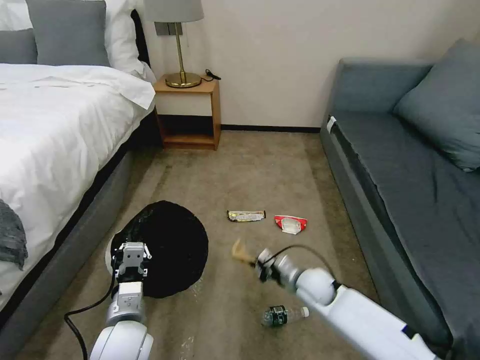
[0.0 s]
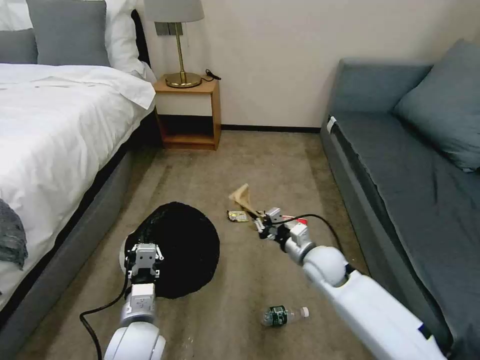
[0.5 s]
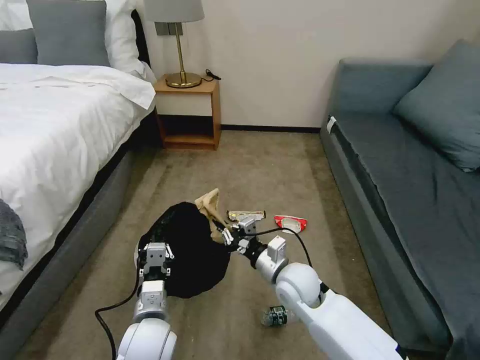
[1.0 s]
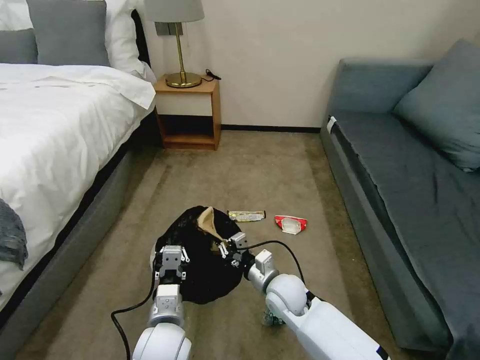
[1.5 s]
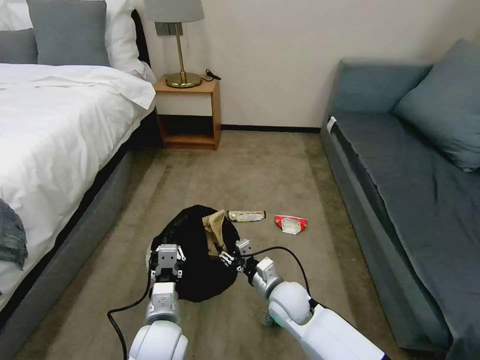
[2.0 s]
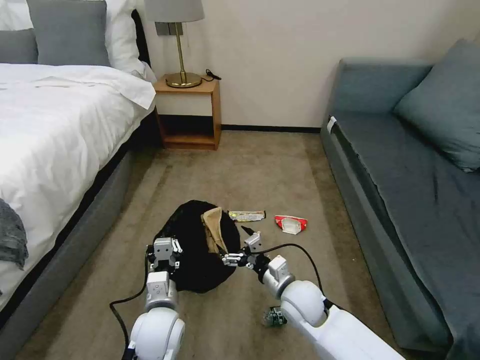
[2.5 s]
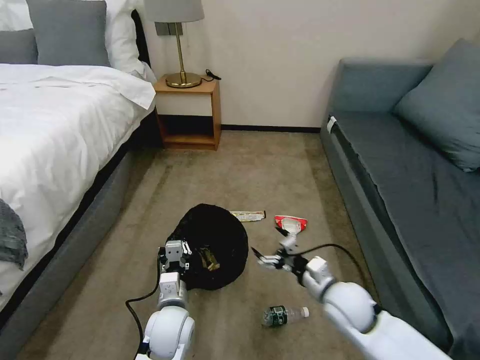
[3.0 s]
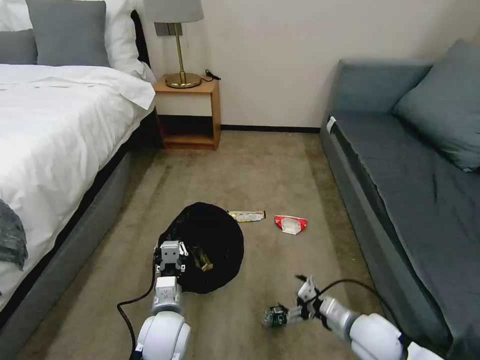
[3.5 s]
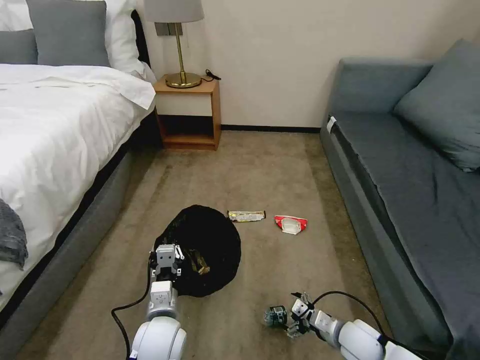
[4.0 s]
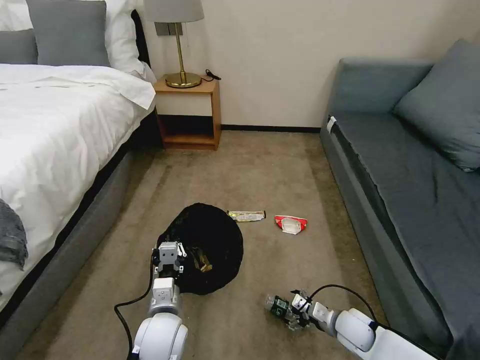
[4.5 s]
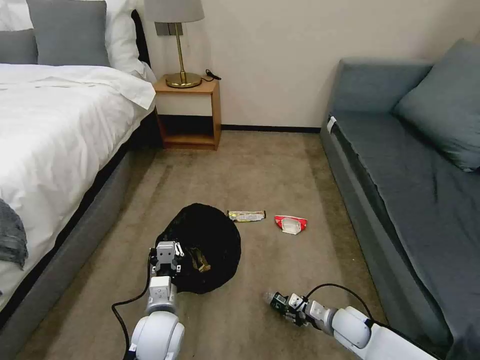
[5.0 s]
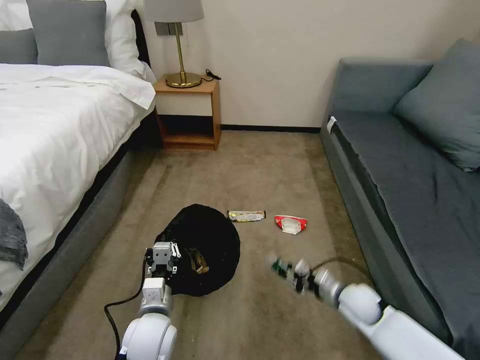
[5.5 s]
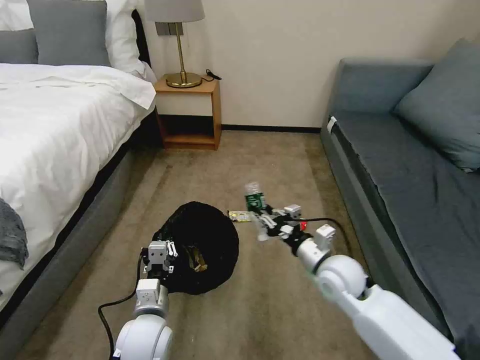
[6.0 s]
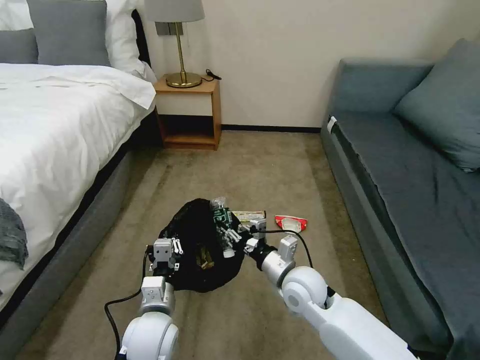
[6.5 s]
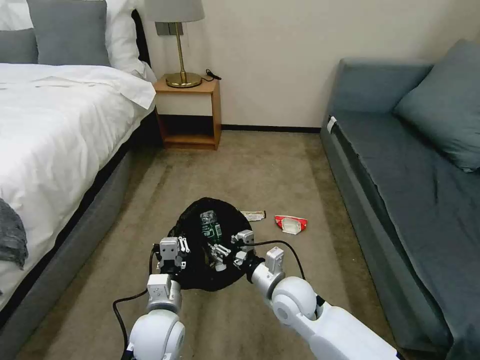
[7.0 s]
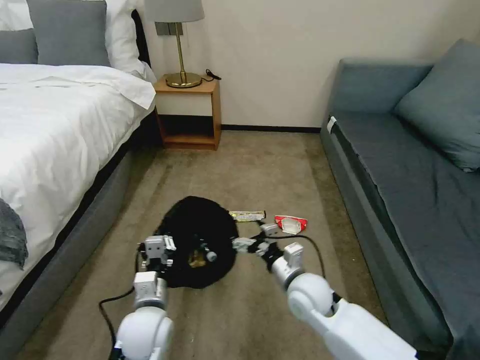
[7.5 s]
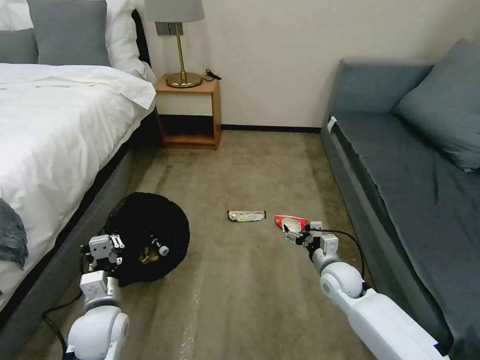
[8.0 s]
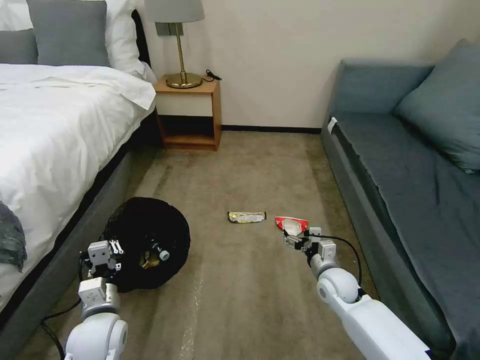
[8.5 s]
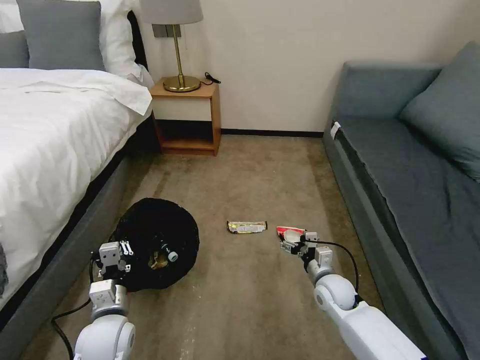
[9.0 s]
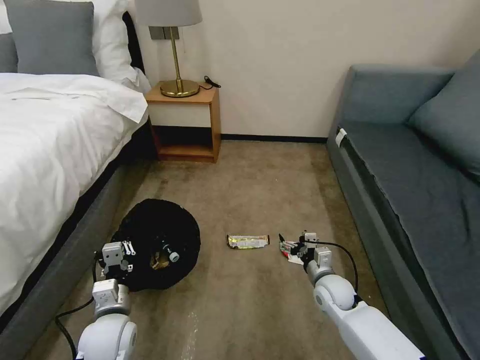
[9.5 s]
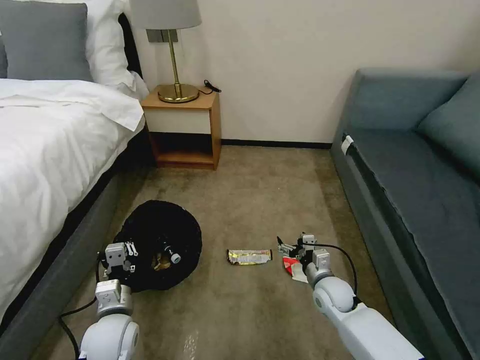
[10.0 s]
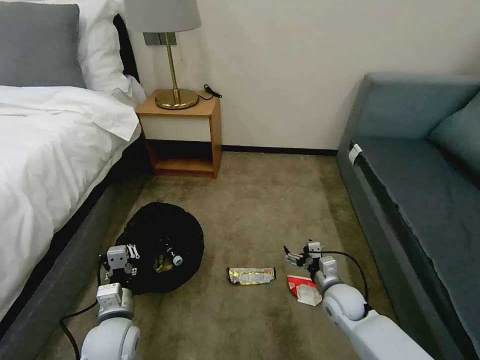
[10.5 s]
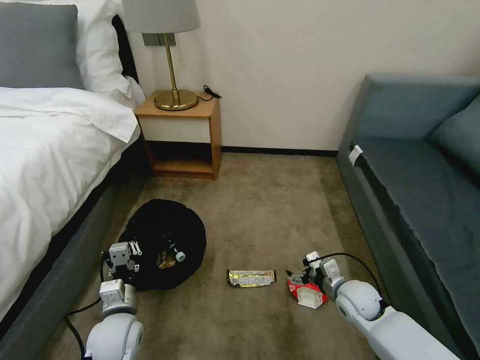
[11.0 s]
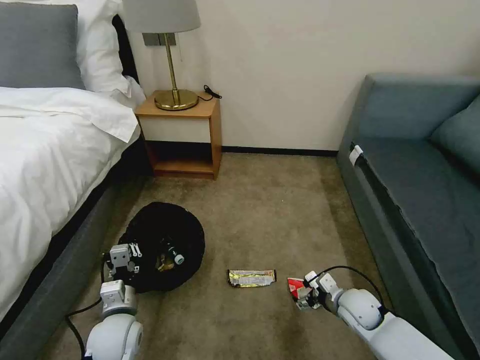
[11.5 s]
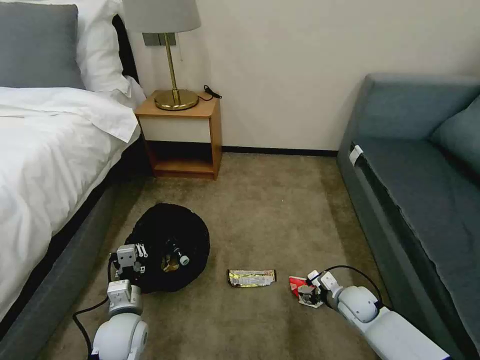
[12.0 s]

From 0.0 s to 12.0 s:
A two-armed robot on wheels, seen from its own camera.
Task of the whole recording: Pick up the trash bin, then pick up the garbage on the floor and place it into the trash bin.
From 0.0 s to 2.0 s: The left gripper is displaced to the right by approximately 5 cm; the right gripper shifts approximately 10 cm to the left, and opens.
From 2.0 s to 4.0 s: The right gripper moves to the right and backward, approximately 20 cm, and opens.
From 4.0 s to 6.0 s: The right gripper heads upward, forward and to the left, covering some 20 cm, and closes its fingers.
From 6.0 s to 8.0 s: The left gripper moves to the left, approximately 10 cm; the right gripper heads downward, covering about 10 cm, travels to the left and back again, about 10 cm each way, and opens up.
From 8.0 s to 10.0 s: The right gripper is displaced downward by approximately 5 cm.
From 10.0 s to 12.0 s: The right gripper is displaced to the right by some 5 cm.

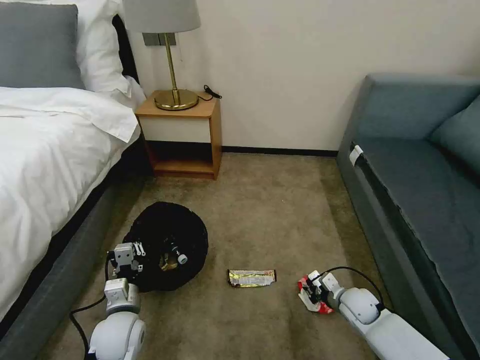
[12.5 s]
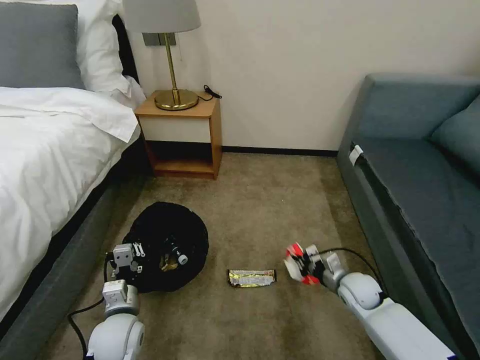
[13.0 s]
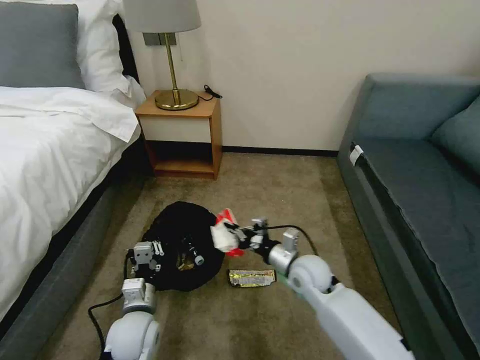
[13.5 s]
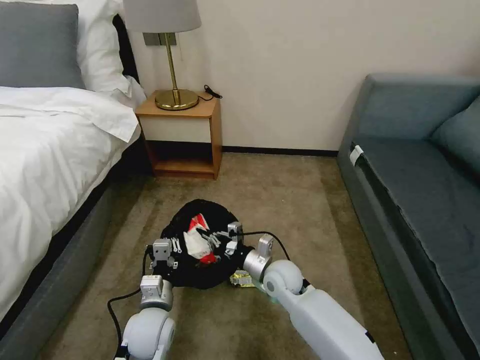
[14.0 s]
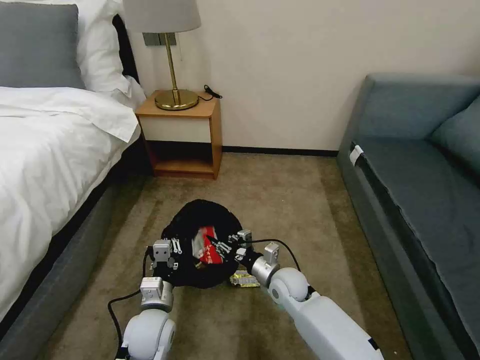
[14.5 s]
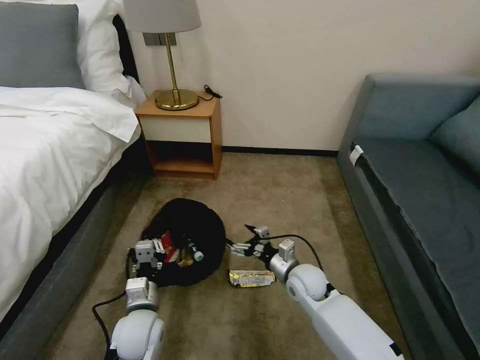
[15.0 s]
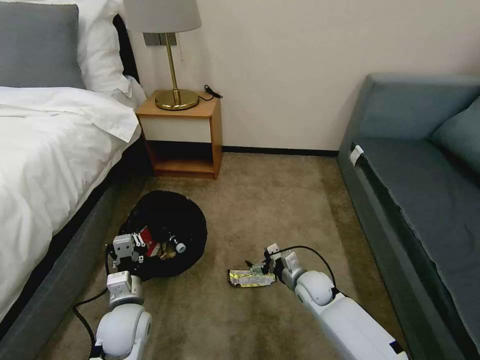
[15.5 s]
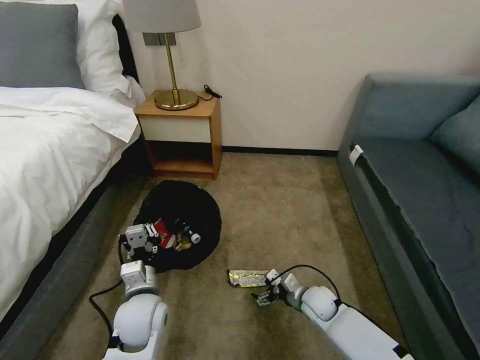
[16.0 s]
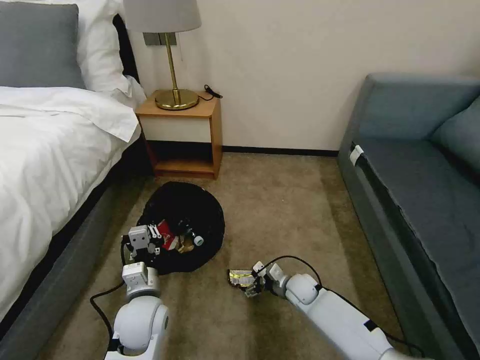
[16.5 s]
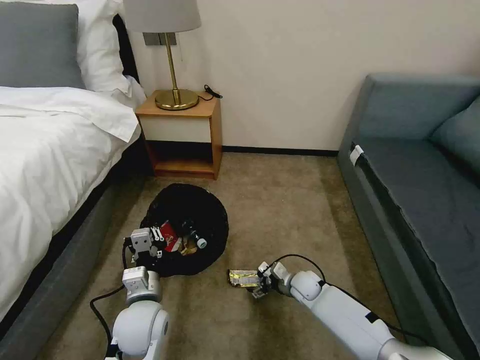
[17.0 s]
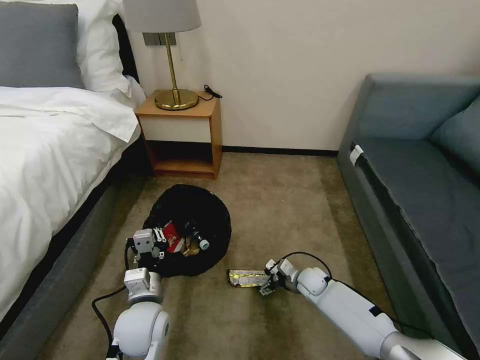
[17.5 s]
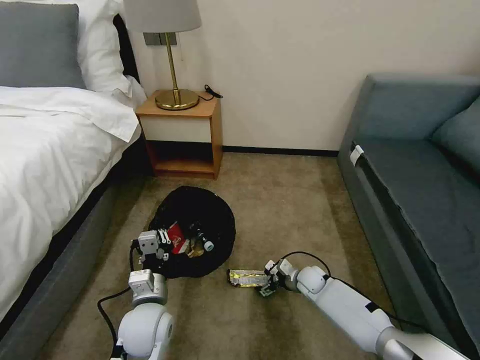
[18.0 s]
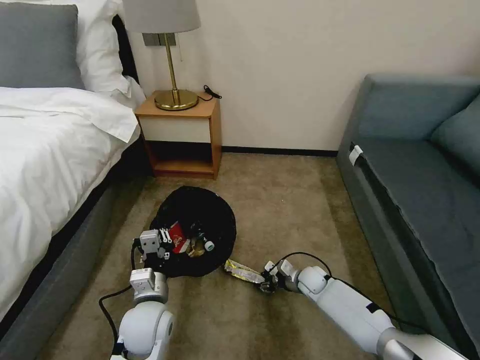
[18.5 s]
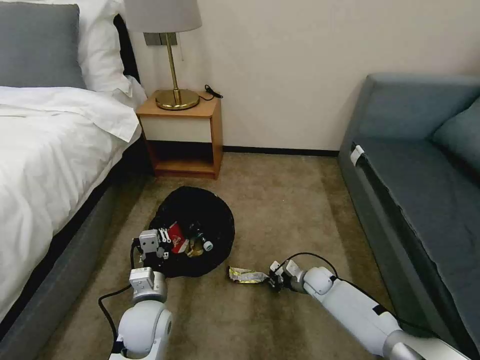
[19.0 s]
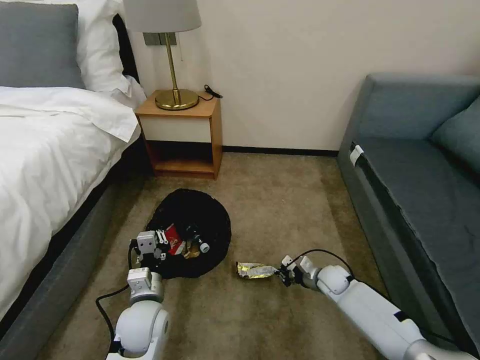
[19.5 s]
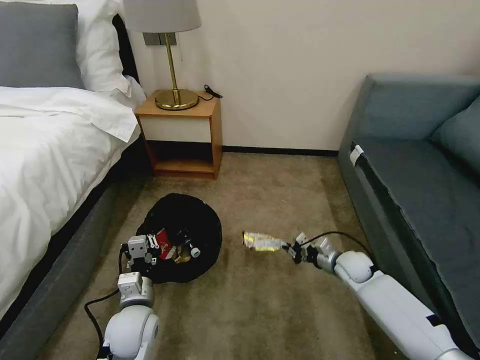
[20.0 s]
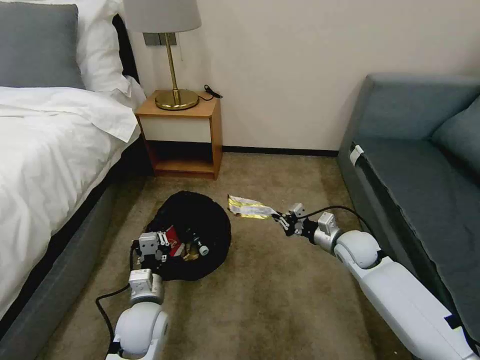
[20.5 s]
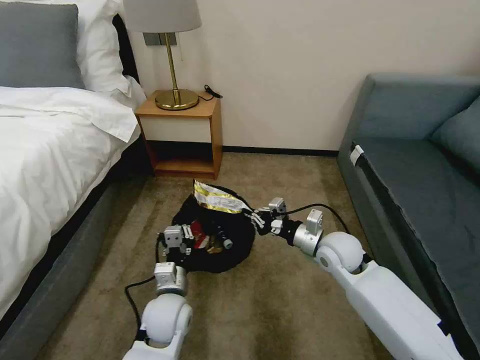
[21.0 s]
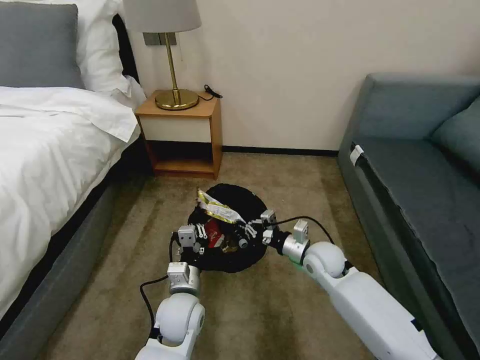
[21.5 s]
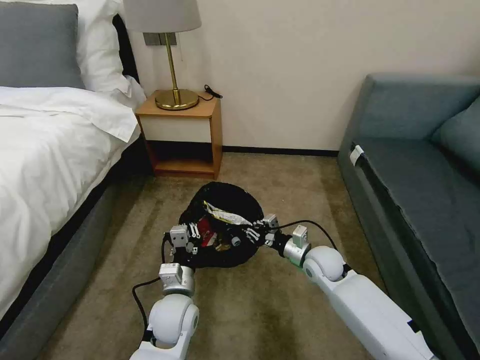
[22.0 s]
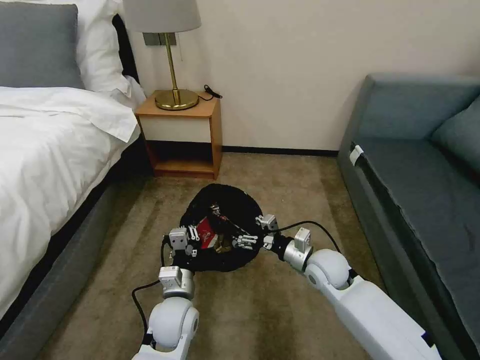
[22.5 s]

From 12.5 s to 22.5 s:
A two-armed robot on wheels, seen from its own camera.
Task of the whole recording: Pick up the trash bin, then pick up the garbage on the floor and place it into the trash bin.
From 12.5 s to 14.5 s: The right gripper travels to the left by some 20 cm; the left gripper shifts roughly 5 cm to the right.
From 14.5 s to 16.5 s: The right gripper heads downward and to the right, covering about 10 cm, and opens. The left gripper moves about 5 cm.
From 16.5 s to 18.5 s: The right gripper travels to the right by about 5 cm, and closes.
From 18.5 s to 20.5 s: The right gripper is displaced upward by some 20 cm, and closes its fingers.
From 20.5 s to 22.5 s: The left gripper is displaced to the right by approximately 5 cm, while the right gripper heads to the left, covering some 10 cm, and opens its fingers.

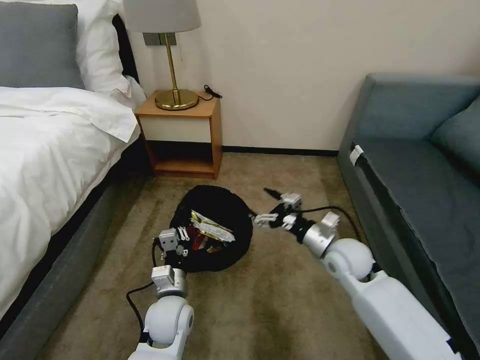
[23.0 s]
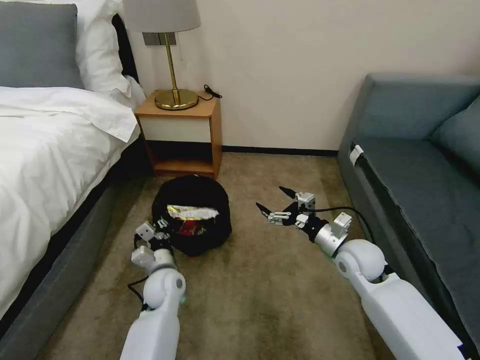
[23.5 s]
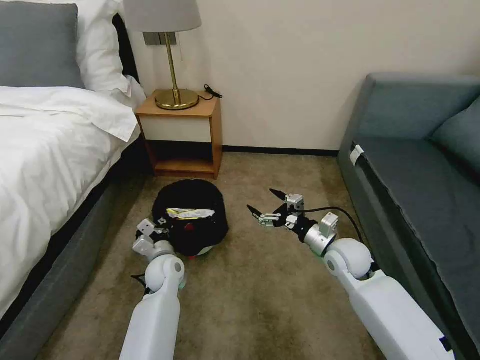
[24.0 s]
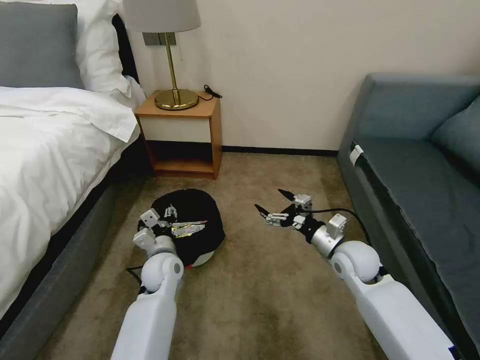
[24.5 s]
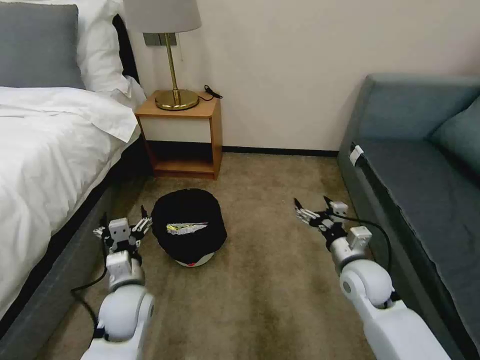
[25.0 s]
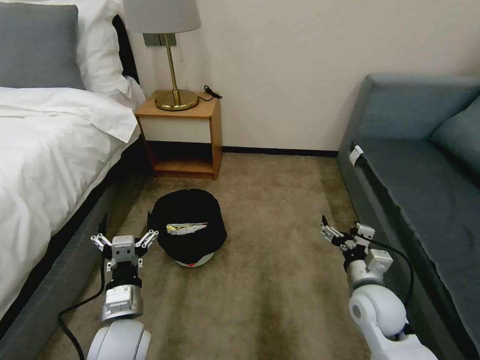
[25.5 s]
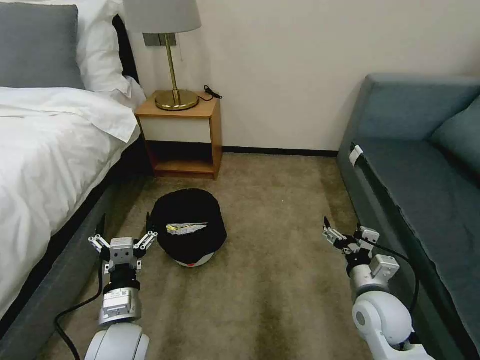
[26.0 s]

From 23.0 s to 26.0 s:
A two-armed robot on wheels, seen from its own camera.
Task of the whole recording: Pick up the trash bin, then pick up the garbage on the floor and place it into the trash bin.
From 23.0 s to 24.5 s: The left gripper goes about 10 cm forward, and opens.
From 24.5 s to 26.0 s: The left gripper is displaced backward by roughly 15 cm, and opens up, while the right gripper travels backward by about 10 cm.
